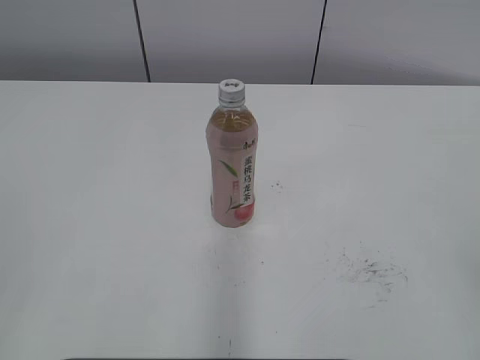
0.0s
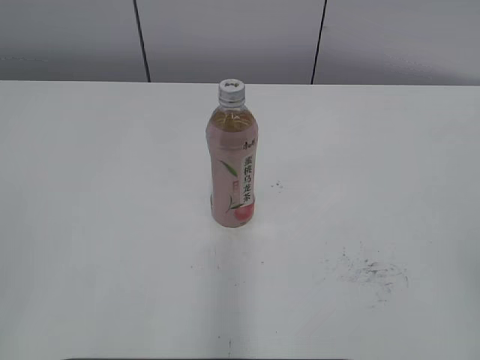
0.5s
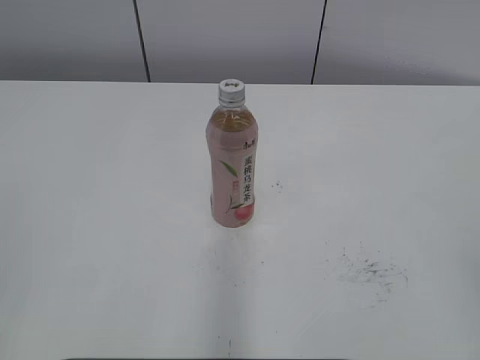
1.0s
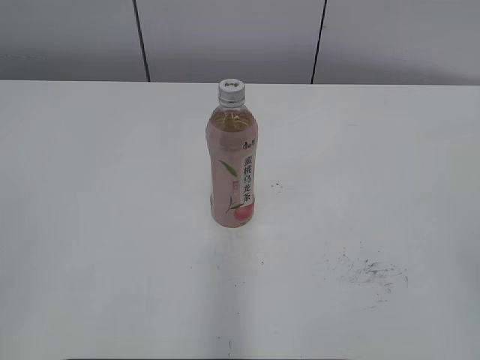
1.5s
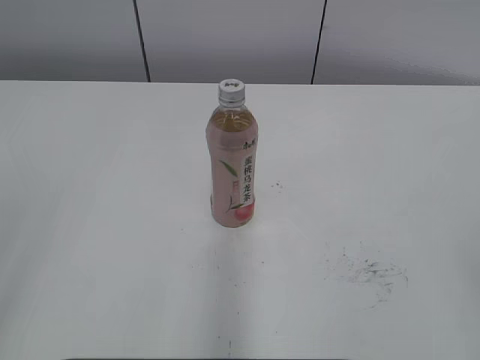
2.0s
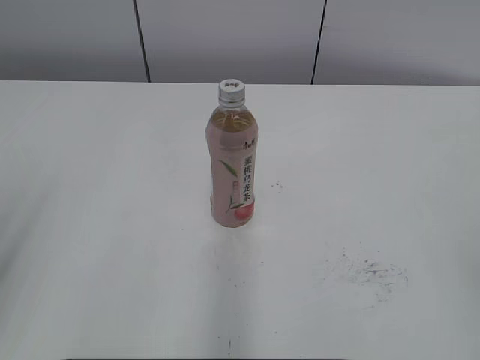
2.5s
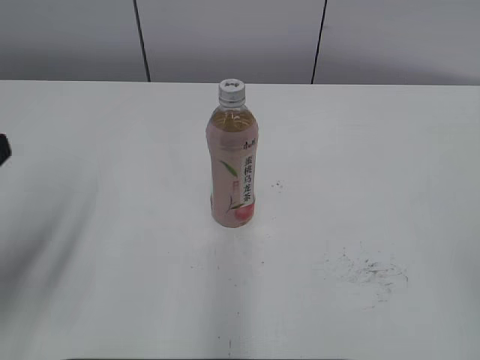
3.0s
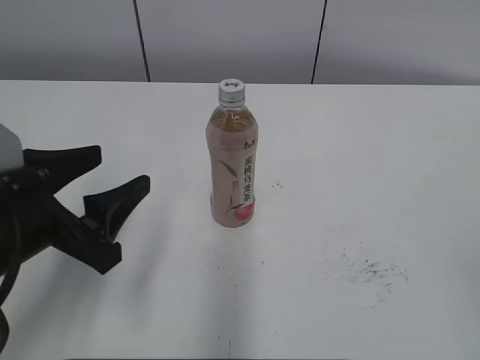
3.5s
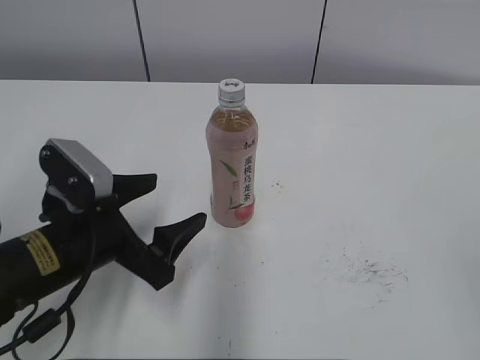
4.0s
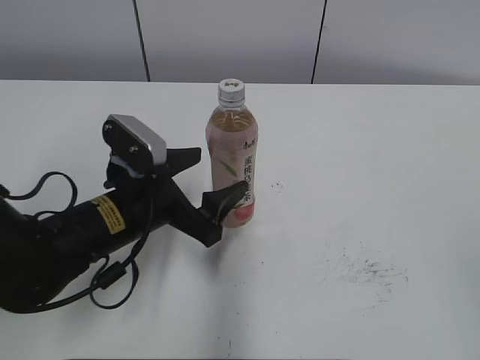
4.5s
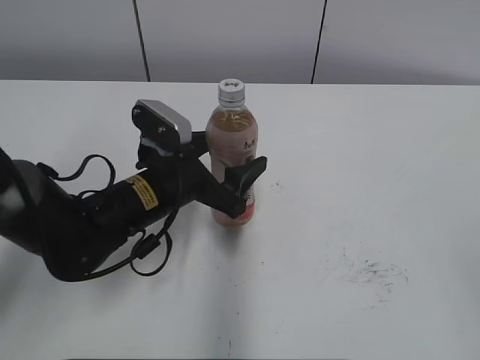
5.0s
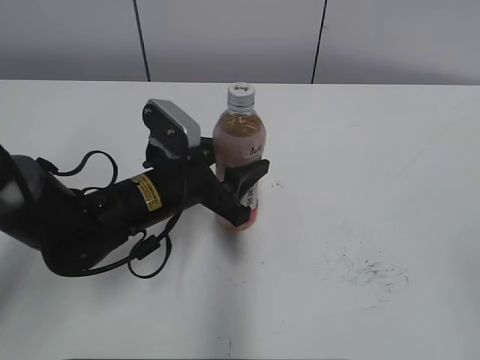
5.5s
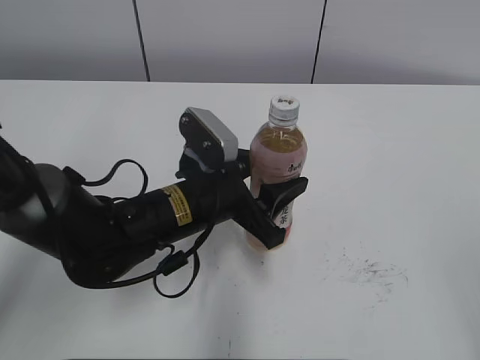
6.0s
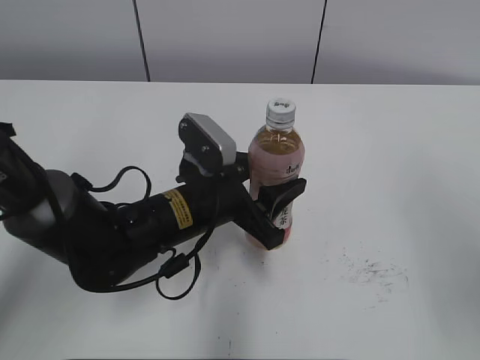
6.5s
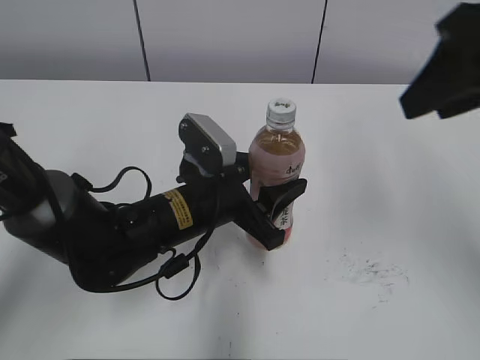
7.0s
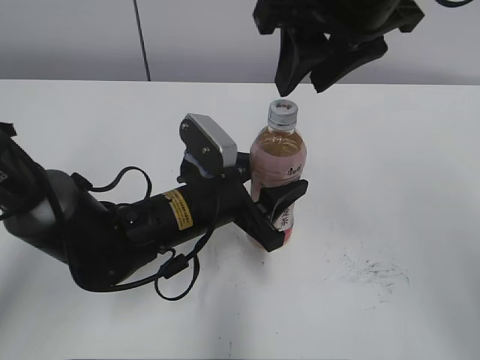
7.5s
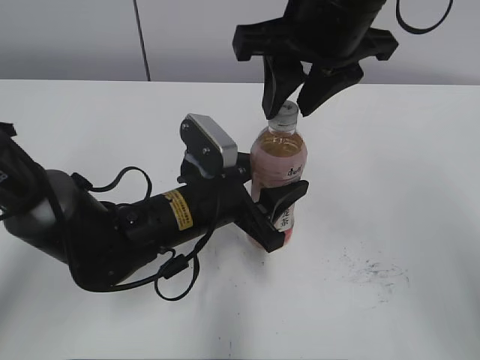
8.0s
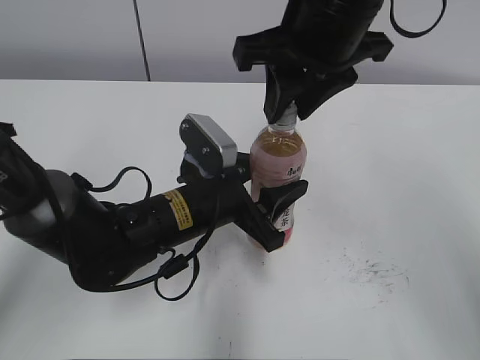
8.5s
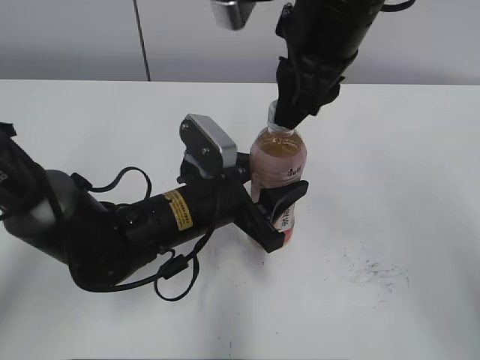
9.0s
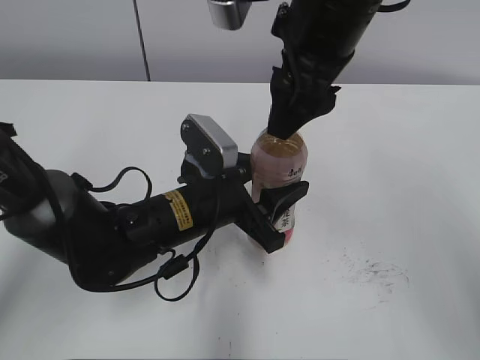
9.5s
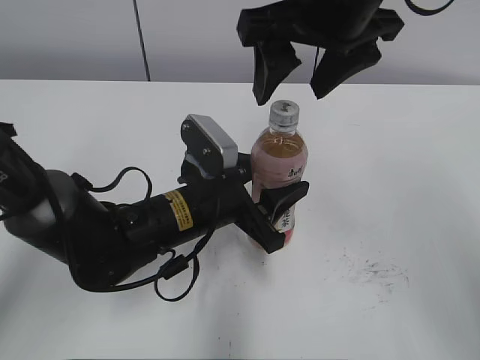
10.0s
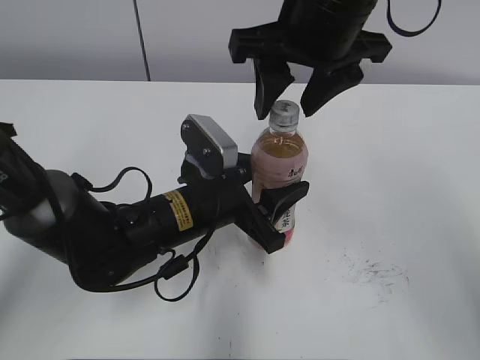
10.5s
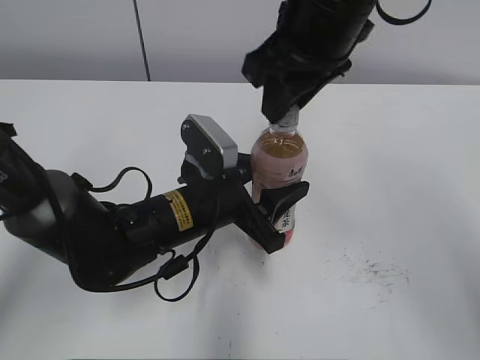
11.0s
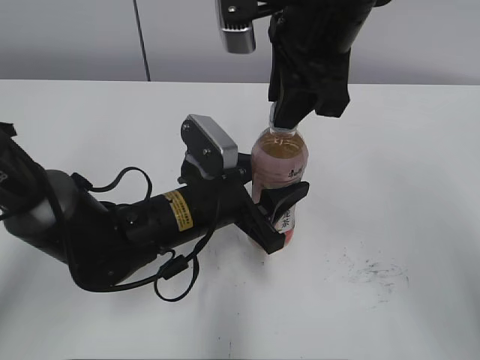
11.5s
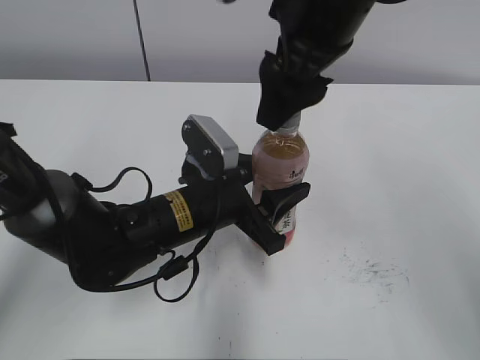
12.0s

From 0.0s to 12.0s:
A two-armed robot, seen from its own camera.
Step, from 0.0s to 5.0s: Grab the Peach Oolong Tea with the left hand.
Step, from 5.5s to 7.0s: Move the Peach Oolong Tea from left to right.
From 2.0s to 4.0s: The left gripper moves downward, forward and to the right, some 30 cm, and opens its fingers.
From 4.0s to 6.0s: The left gripper is displaced to the right and forward by some 15 cm, and closes up.
From 6.0s to 8.0s: The right gripper goes about 40 cm forward and to the left.
From 8.0s to 10.0s: The right gripper opens.
From 10.0s to 12.0s: The right gripper closes, then reopens.

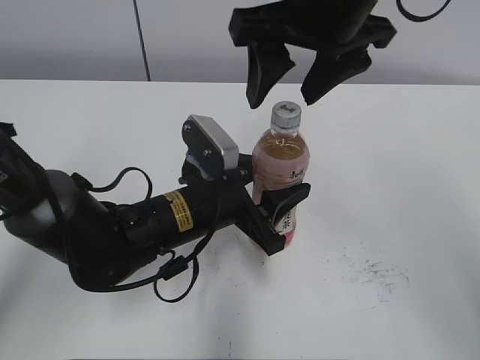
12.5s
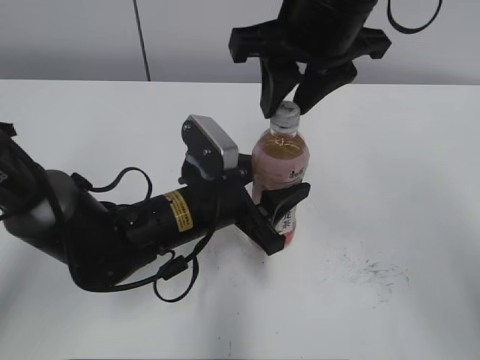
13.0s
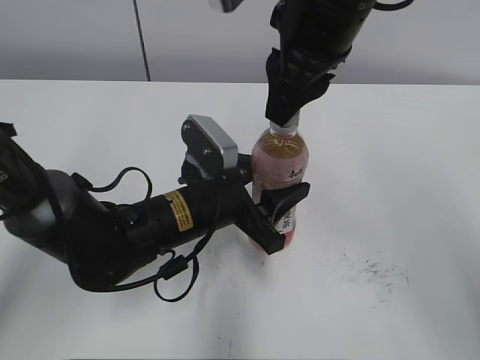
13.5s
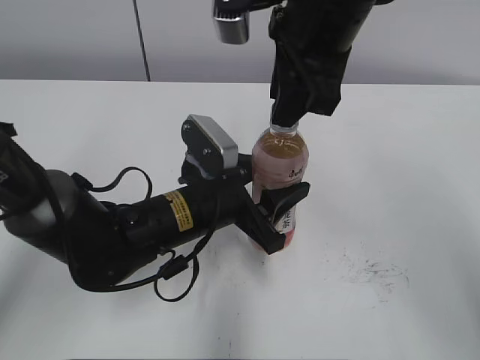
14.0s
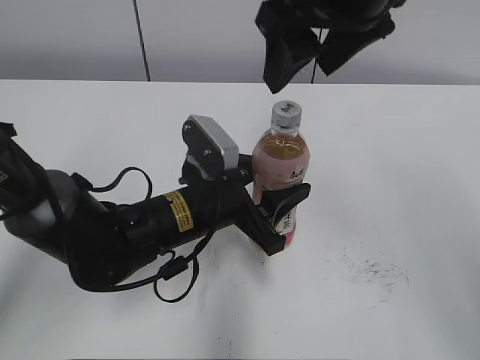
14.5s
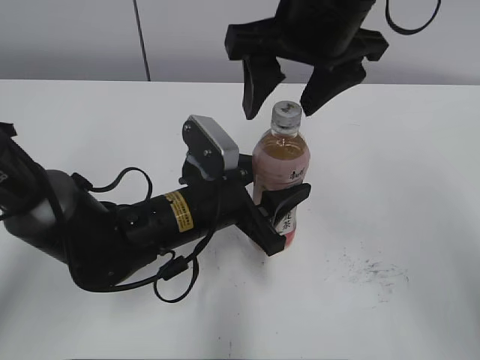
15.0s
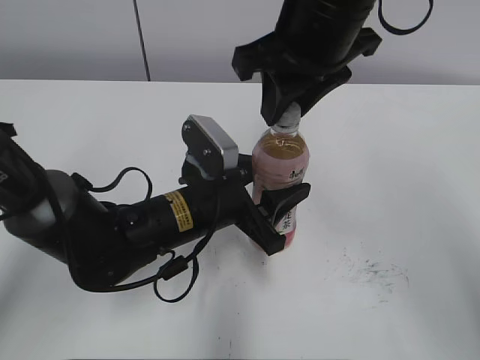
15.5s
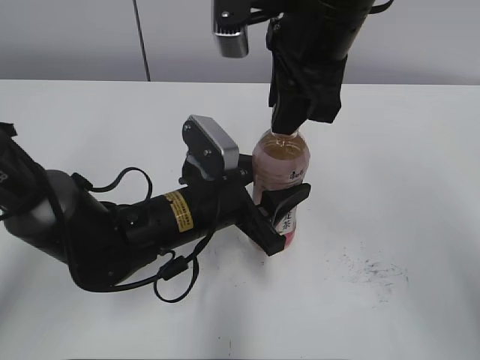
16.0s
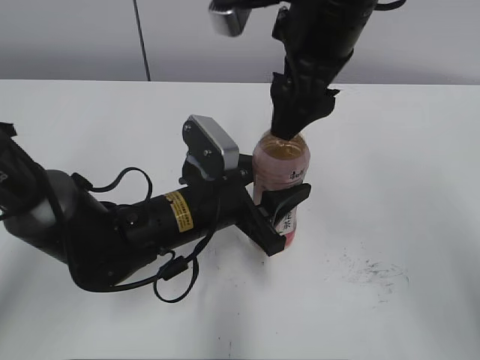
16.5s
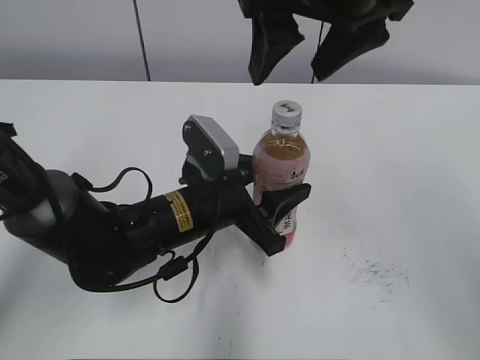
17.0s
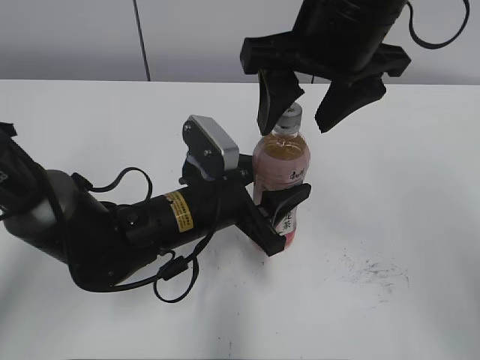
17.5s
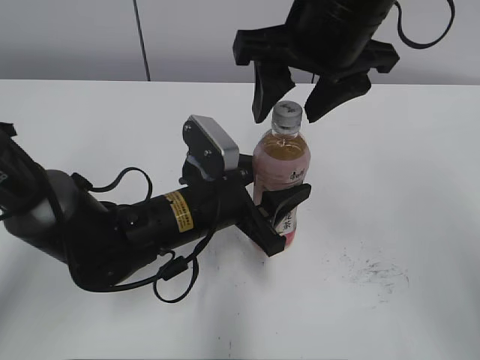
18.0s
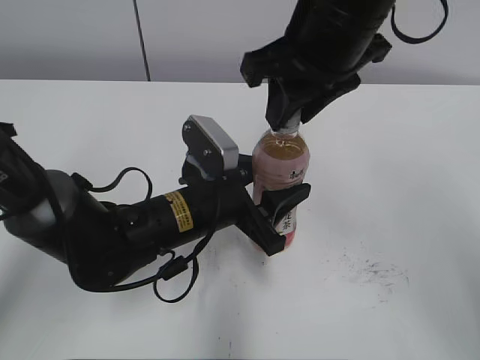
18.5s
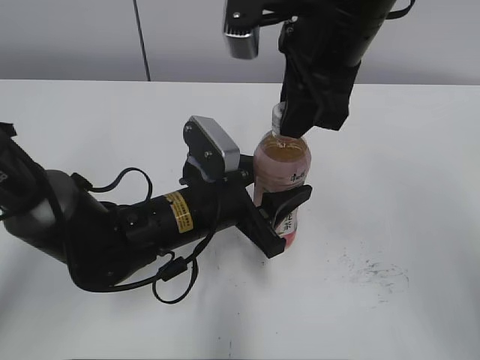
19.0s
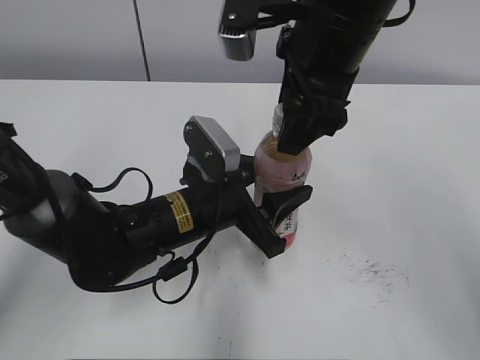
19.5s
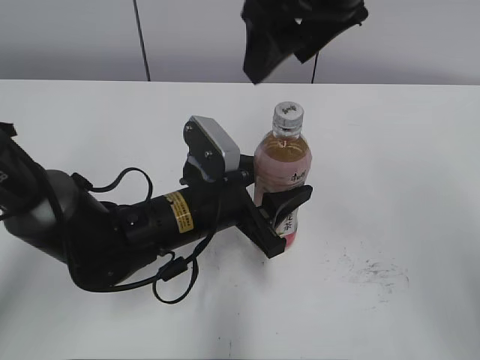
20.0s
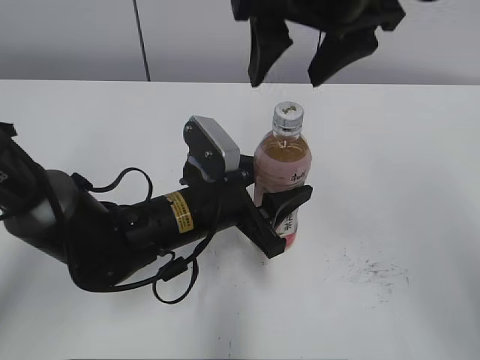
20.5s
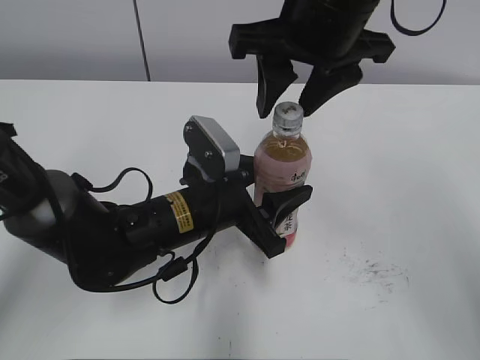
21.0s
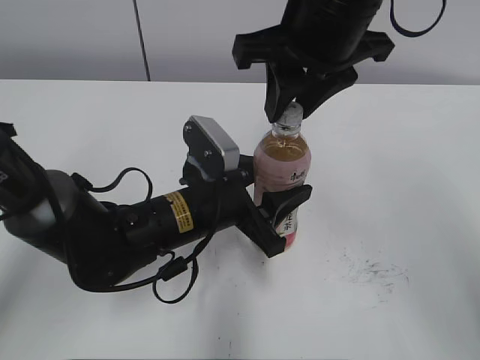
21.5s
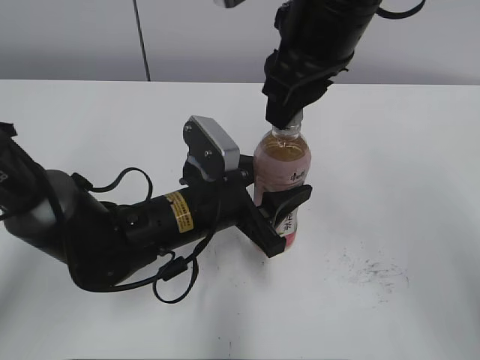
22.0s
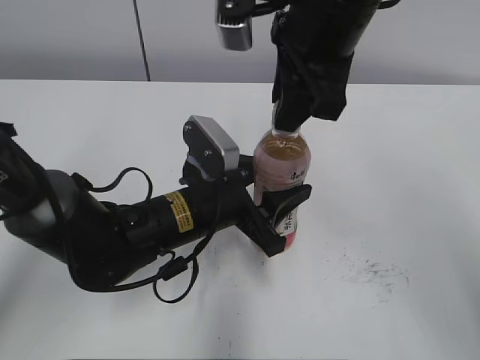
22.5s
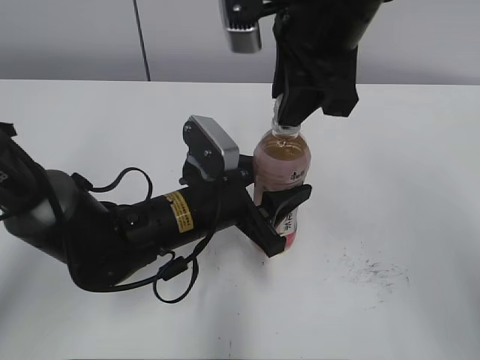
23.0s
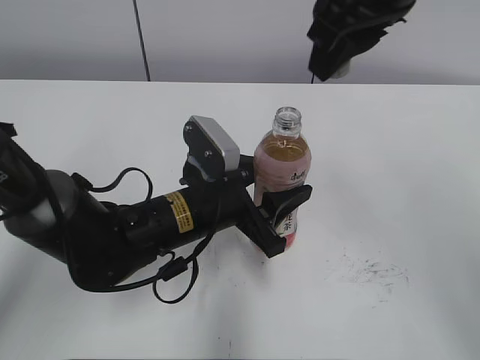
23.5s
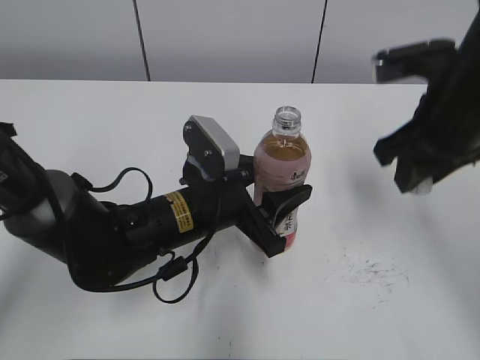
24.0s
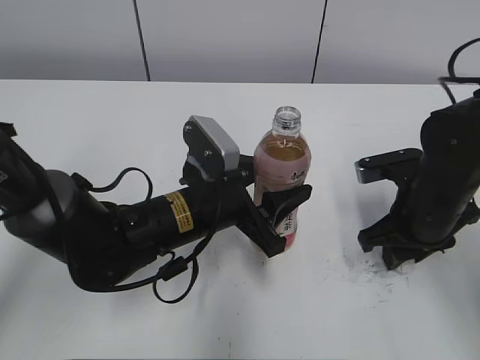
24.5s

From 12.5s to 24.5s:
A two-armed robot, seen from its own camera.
From 12.5s to 14.5s: The right gripper closes, then reopens.
From 14.5s to 16.5s: The right gripper closes and opens again.
From 16.5s to 18.5s: The right gripper closes up.
From 18.5s to 20.5s: The right gripper opens up.
From 20.5s to 22.5s: The right gripper closes its fingers.
From 22.5s to 24.5s: The right gripper shifts some 25 cm downward and to the right.

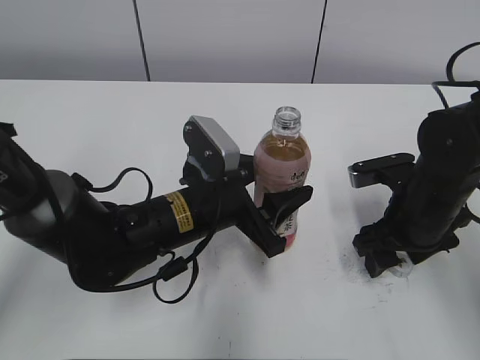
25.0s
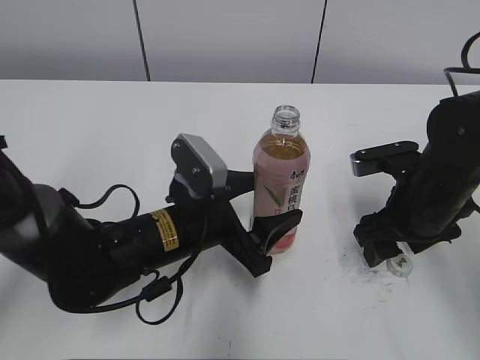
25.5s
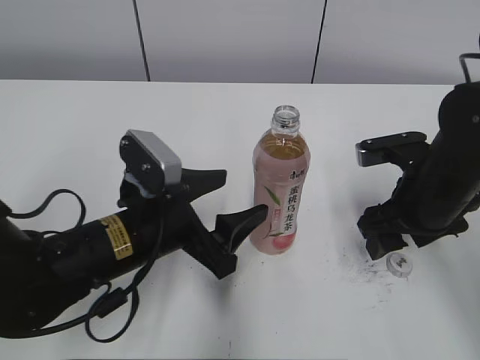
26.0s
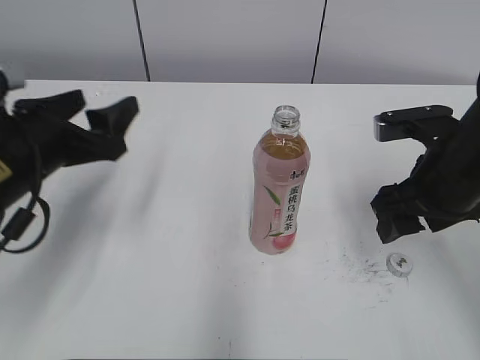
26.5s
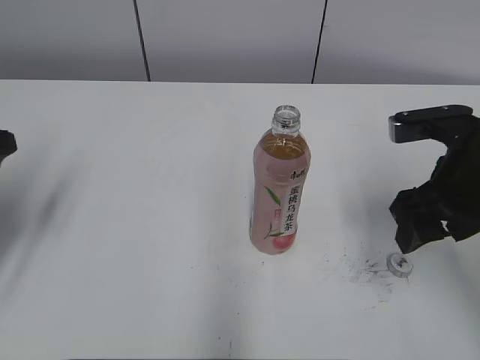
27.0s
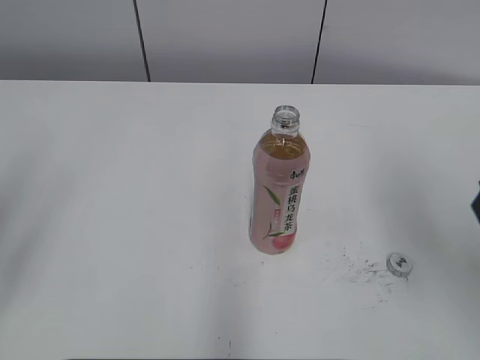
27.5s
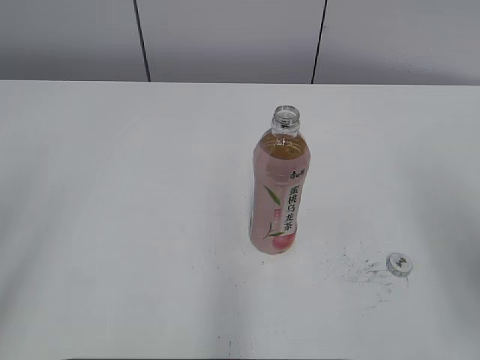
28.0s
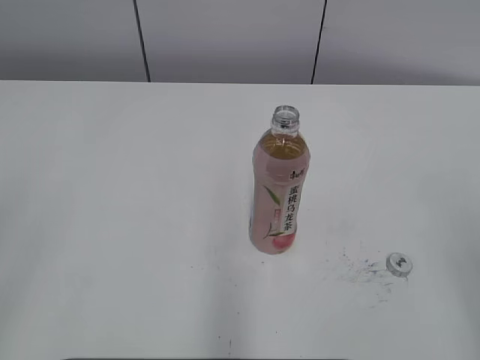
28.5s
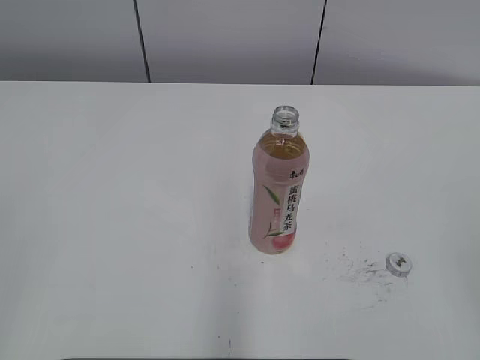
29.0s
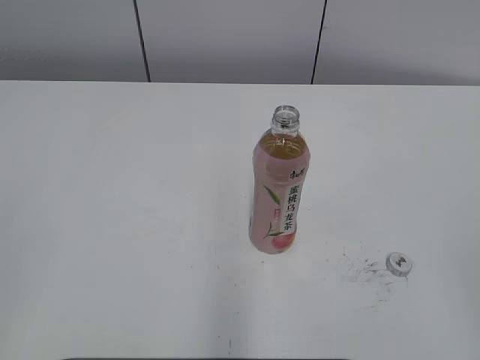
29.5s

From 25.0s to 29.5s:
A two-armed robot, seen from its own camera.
From 25.0s to 27.0s: The right gripper shifts approximately 10 cm upward. Meanwhile the left gripper heads to the left, covering some 25 cm.
From 27.0s to 29.5s: Both grippers travel together backward, some 25 cm. The left gripper closes up.
